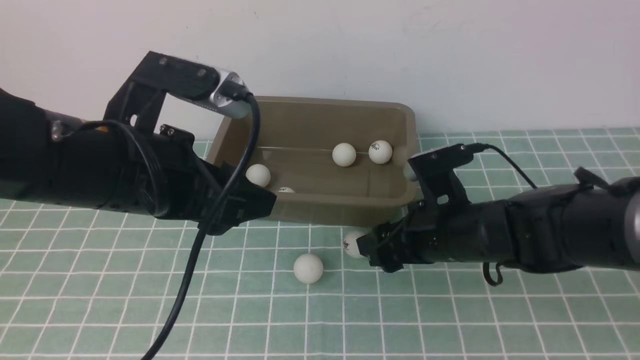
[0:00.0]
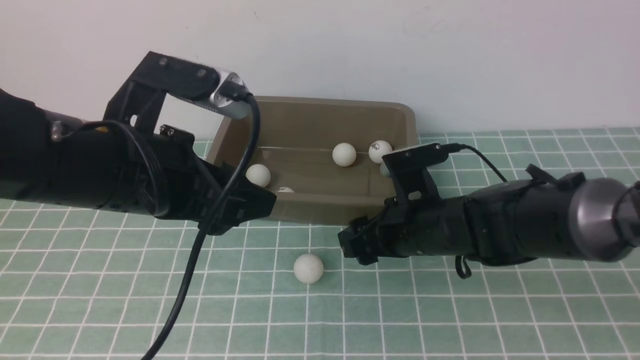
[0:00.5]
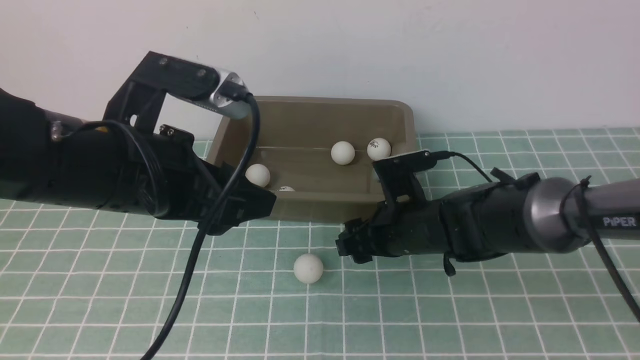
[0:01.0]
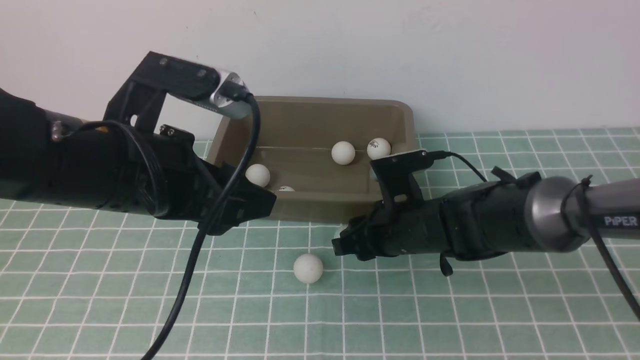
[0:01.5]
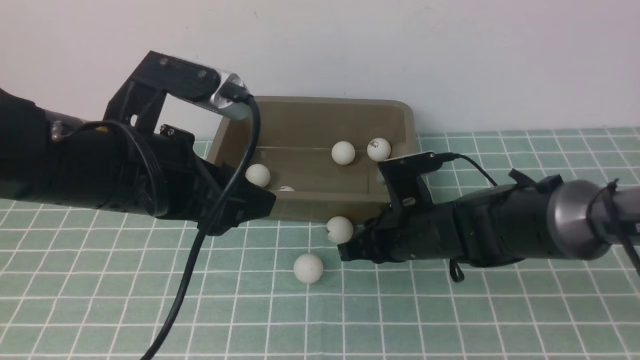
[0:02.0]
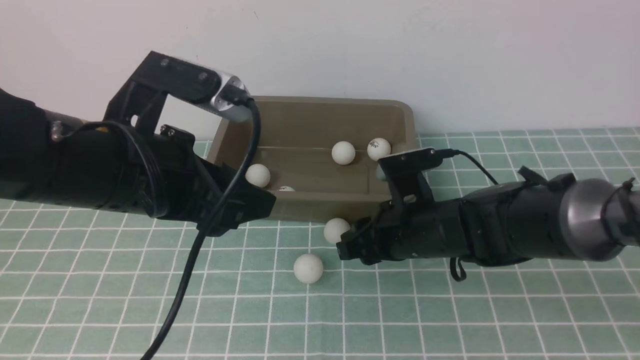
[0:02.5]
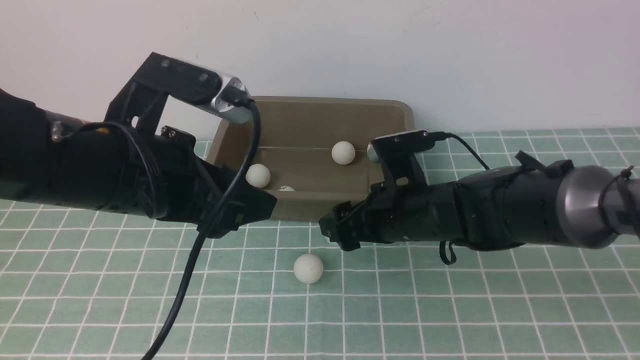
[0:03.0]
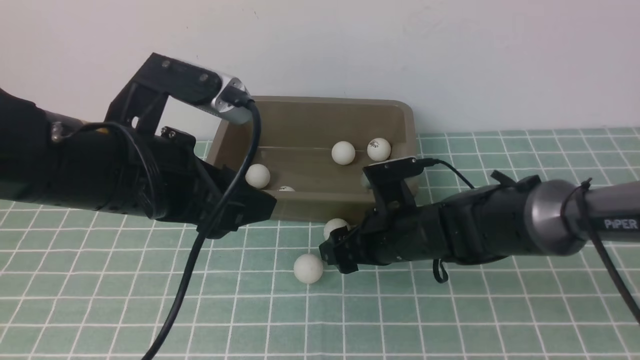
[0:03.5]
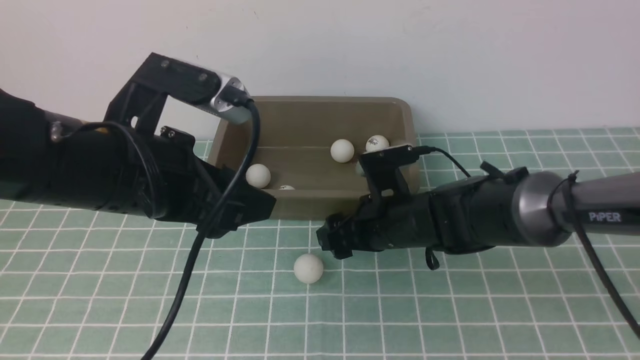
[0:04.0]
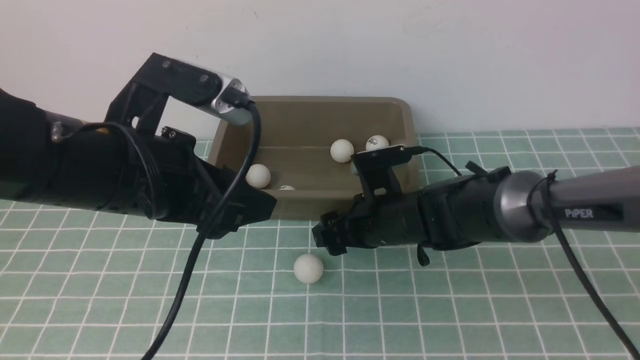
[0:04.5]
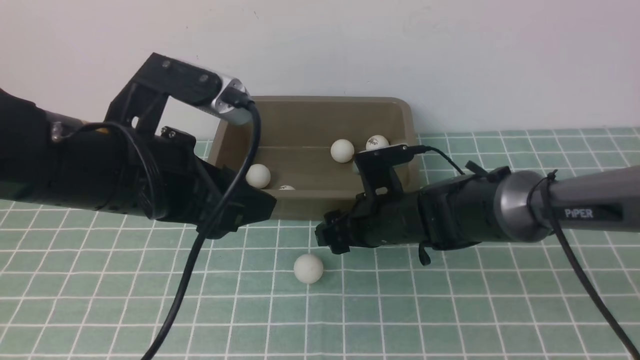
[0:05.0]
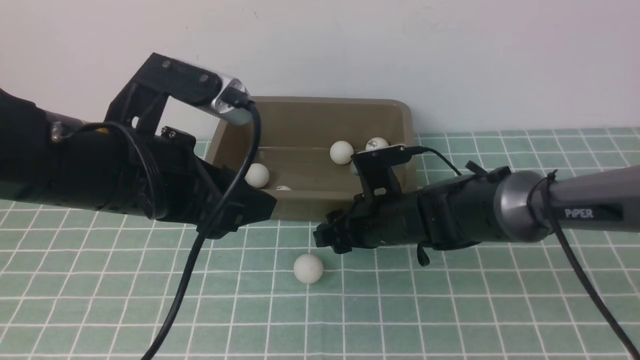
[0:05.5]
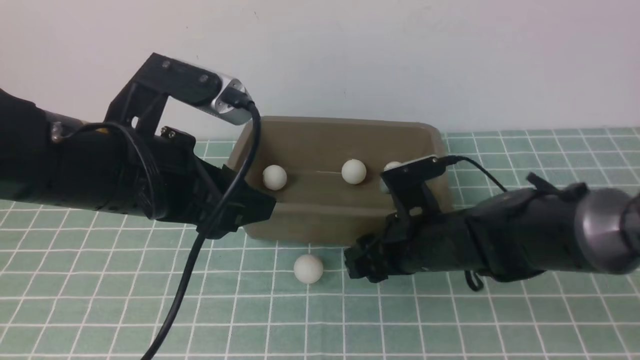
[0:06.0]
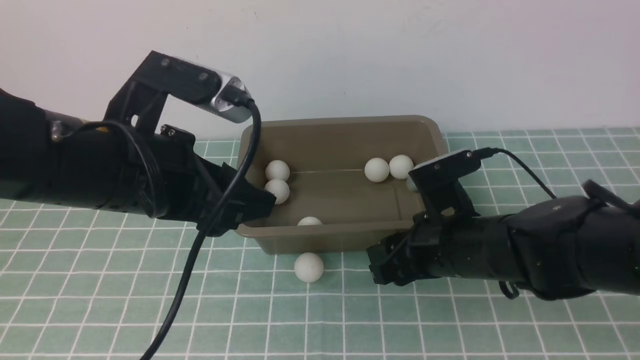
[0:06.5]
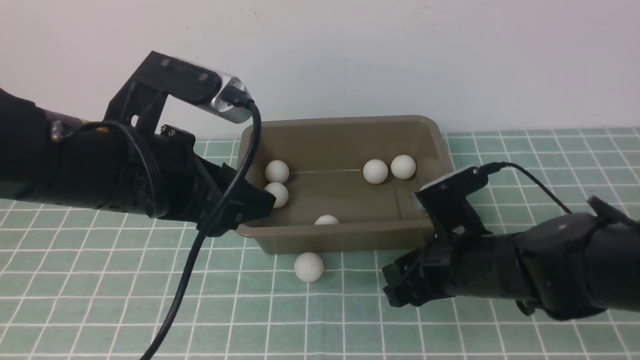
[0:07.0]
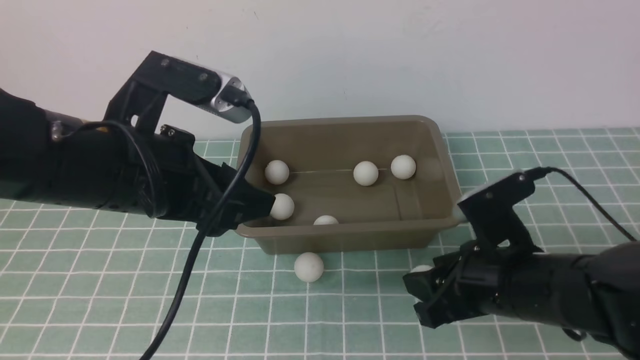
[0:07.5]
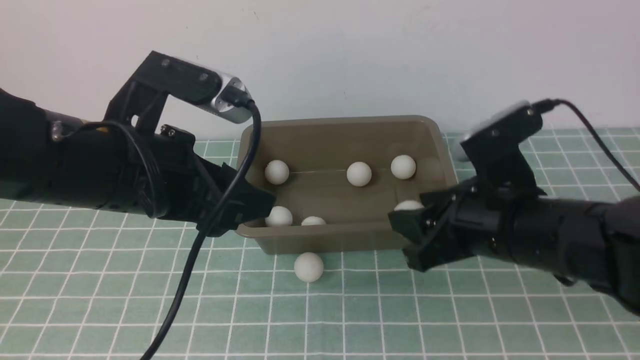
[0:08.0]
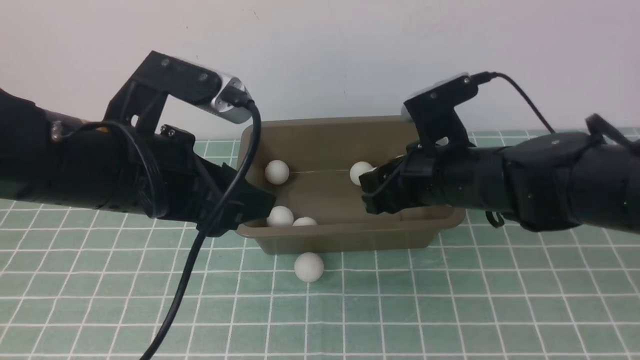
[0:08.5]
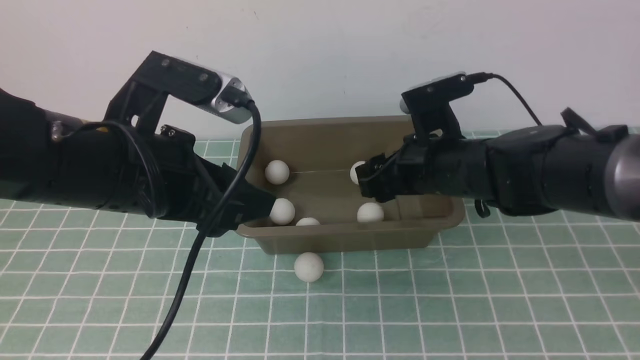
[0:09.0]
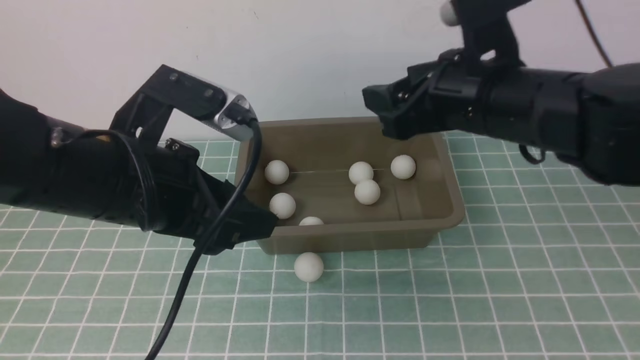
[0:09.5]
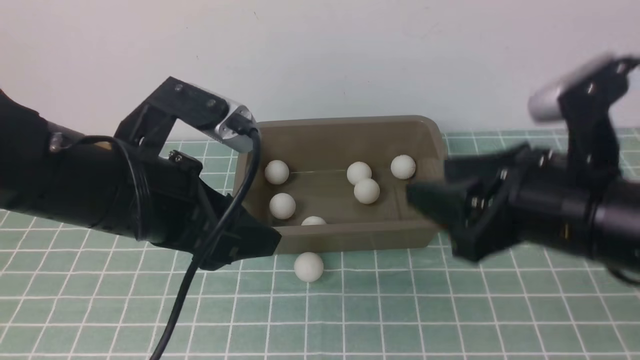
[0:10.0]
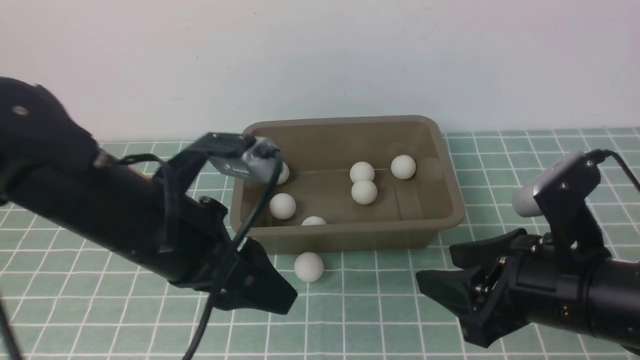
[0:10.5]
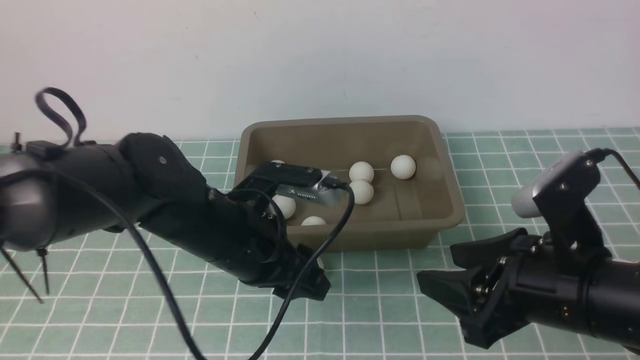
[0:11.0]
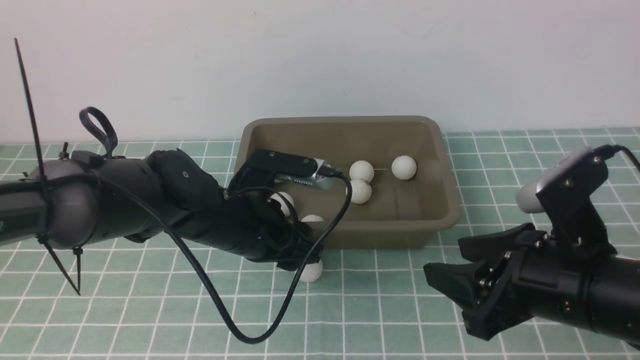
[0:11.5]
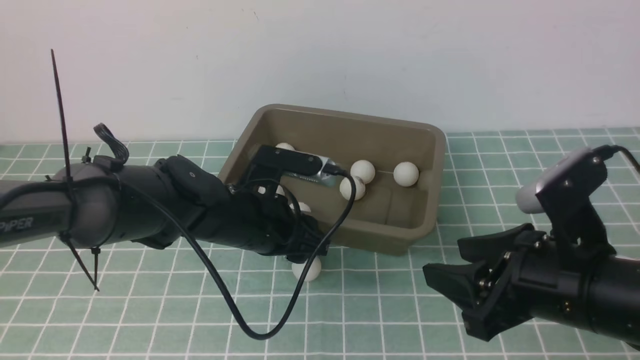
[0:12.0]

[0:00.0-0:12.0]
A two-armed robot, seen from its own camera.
Step, 0:00.0 to 0:06.0: use the right arm to clamp the table tennis ball closest to it.
Step, 0:06.5 to 0:08.5: use the right arm to put the table tennis ball into the box.
0:00.0 to 0:02.0: The right gripper closes its fingers.
0:02.0 to 0:04.0: The right gripper opens.
0:04.0 to 0:06.0: The right gripper moves approximately 5 cm, and closes.
0:06.0 to 0:08.0: The right gripper shifts approximately 10 cm upward.
0:08.0 to 0:10.0: The right gripper heads backward, covering some 10 cm, and opens.
0:10.0 to 0:12.0: The left gripper travels downward, forward and to the right by some 15 cm.

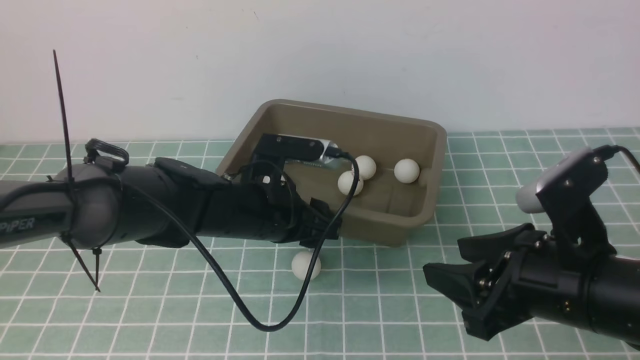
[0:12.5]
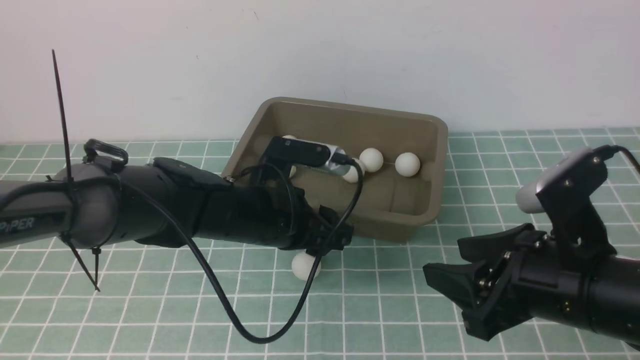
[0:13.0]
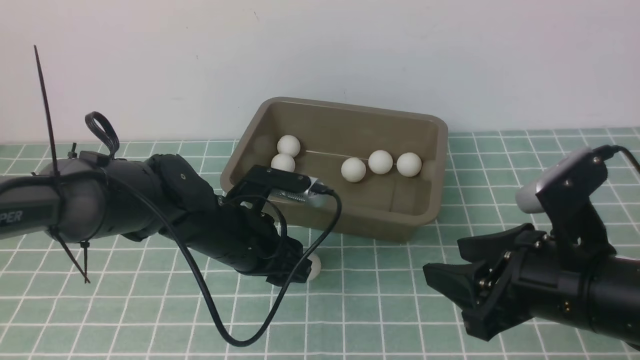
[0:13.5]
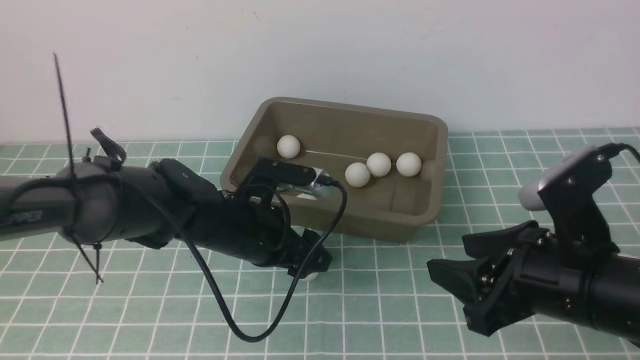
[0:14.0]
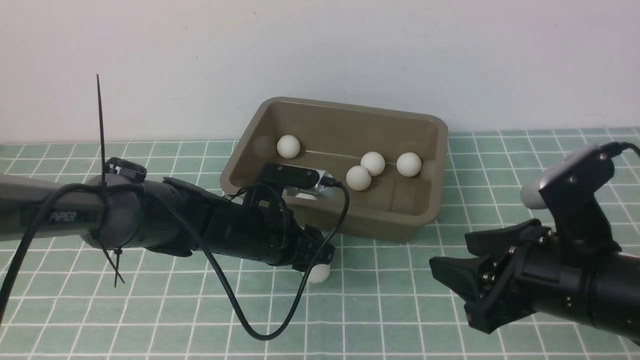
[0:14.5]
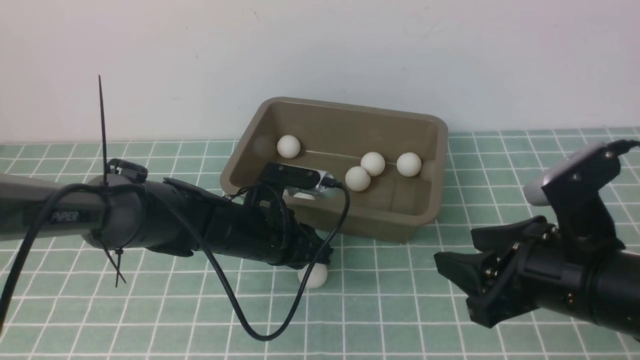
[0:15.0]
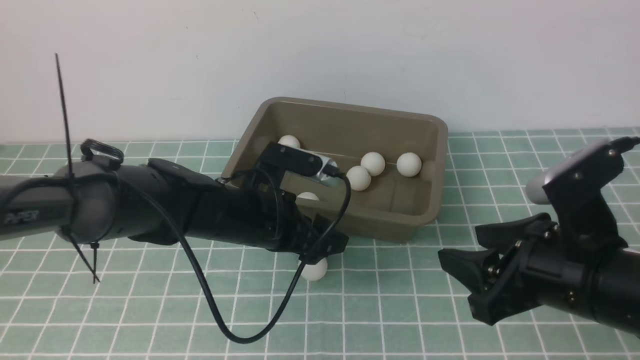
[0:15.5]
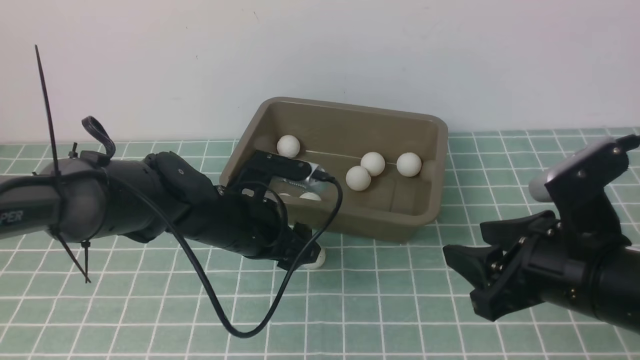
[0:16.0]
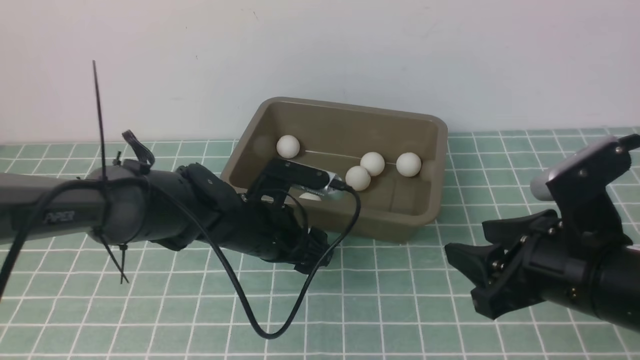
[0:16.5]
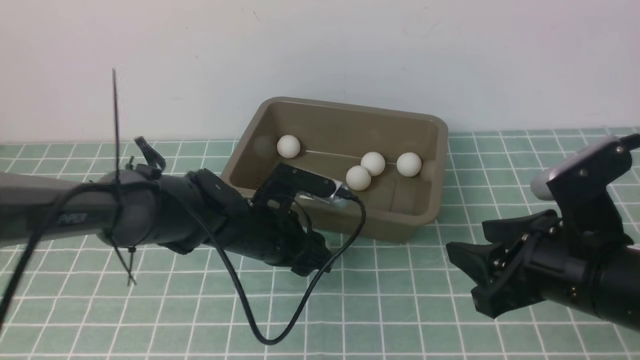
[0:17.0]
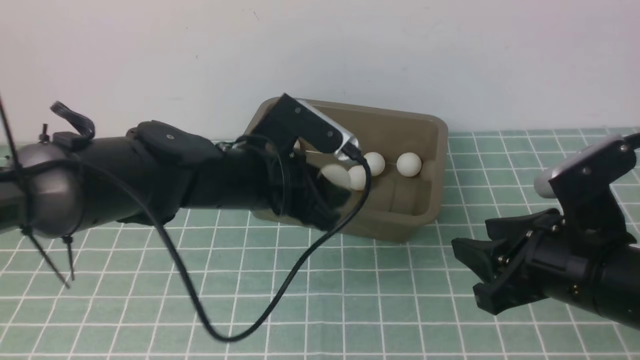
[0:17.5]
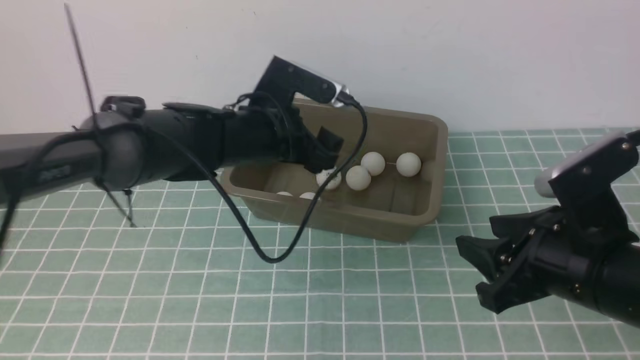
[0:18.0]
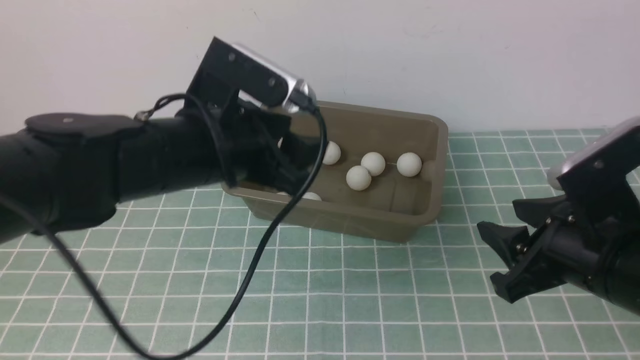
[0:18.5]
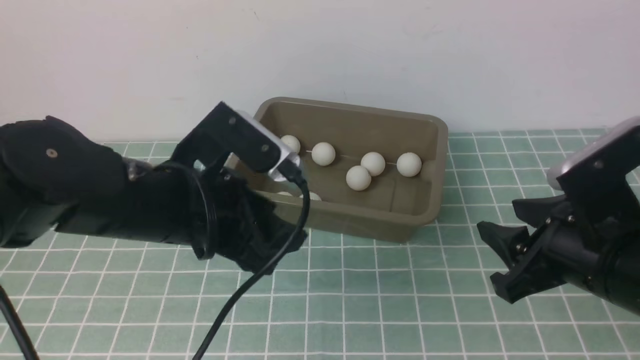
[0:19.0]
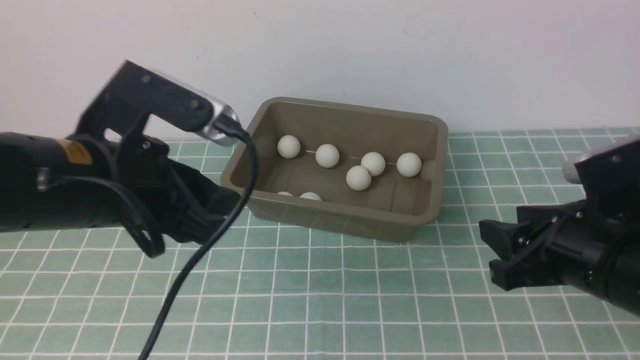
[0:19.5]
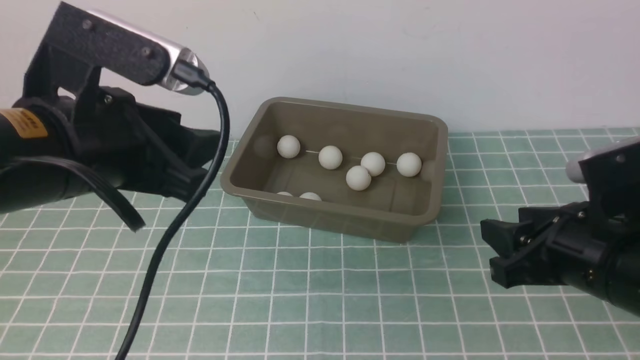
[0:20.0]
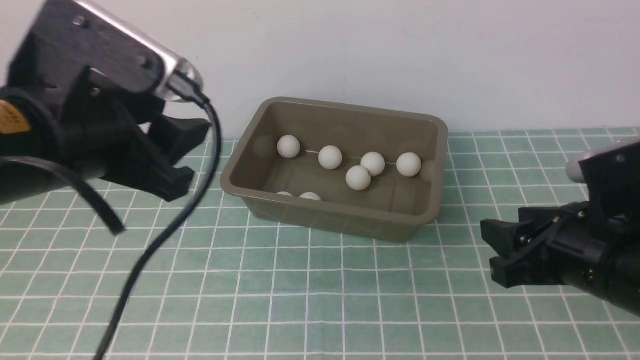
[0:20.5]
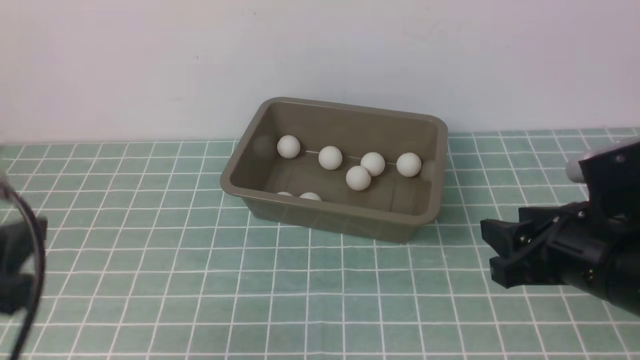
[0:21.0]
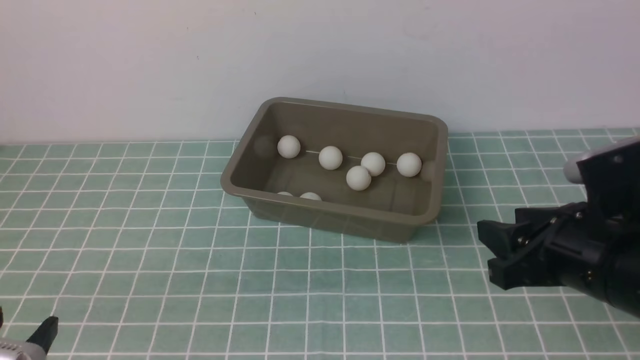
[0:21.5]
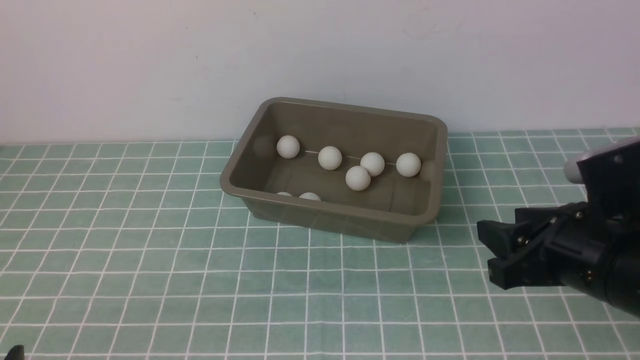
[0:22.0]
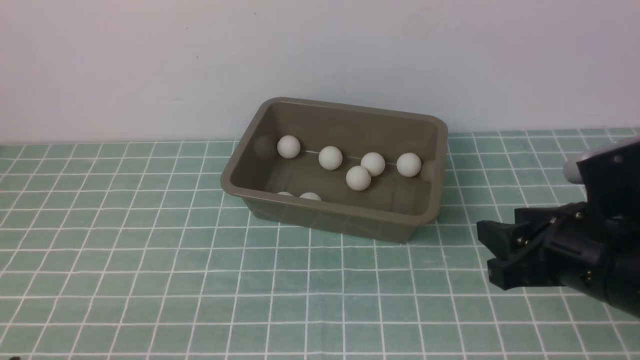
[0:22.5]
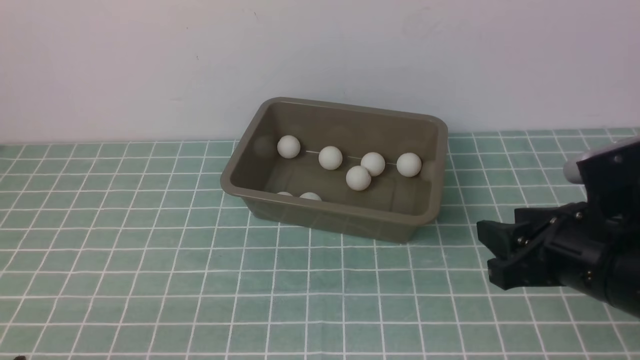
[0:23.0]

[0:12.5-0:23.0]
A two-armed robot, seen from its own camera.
Step, 0:12.5 to 0:17.0: use the left arm to clamp the table tennis ball closest to it.
Step, 0:17.5 to 0:18.0: use the left arm to put the table tennis ball into the box.
0:12.5 to 0:14.5: The left gripper shifts by about 5 cm, and opens and closes again.
0:14.5 to 0:16.5: The left gripper opens.
0:16.5 to 0:19.0: The left gripper travels upward and backward by roughly 15 cm.
0:19.0 to 0:21.0: The left gripper shifts some 20 cm to the left, backward and upward.
0:21.0 to 0:23.0: The left gripper shifts some 20 cm downward and backward.
